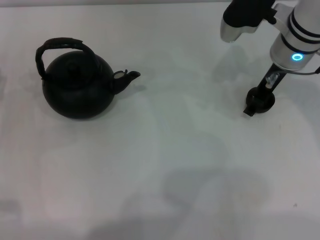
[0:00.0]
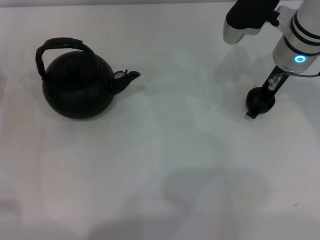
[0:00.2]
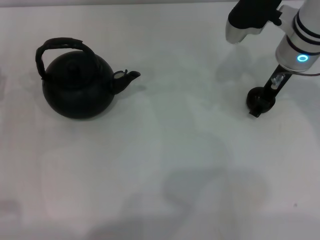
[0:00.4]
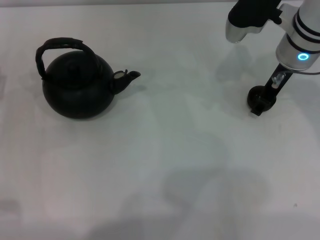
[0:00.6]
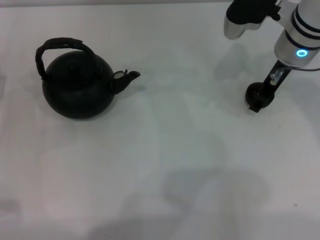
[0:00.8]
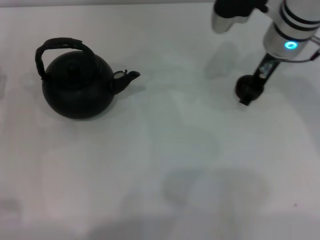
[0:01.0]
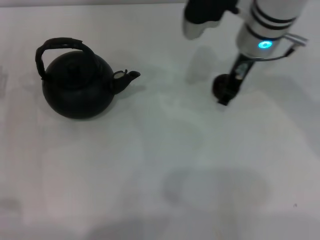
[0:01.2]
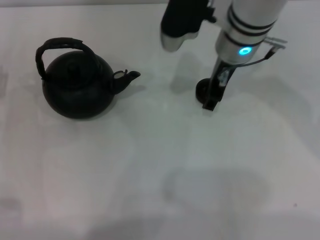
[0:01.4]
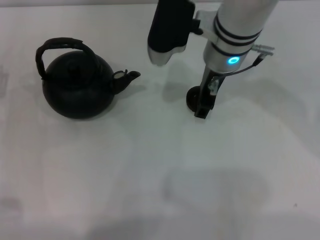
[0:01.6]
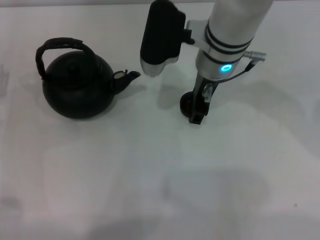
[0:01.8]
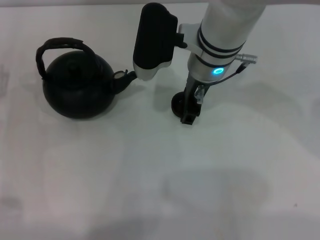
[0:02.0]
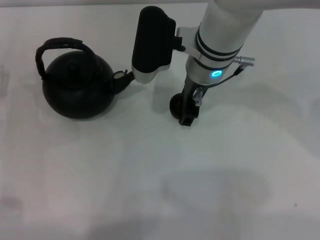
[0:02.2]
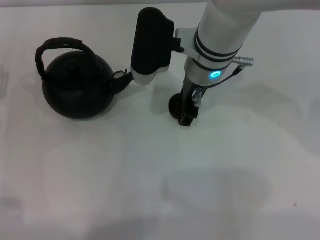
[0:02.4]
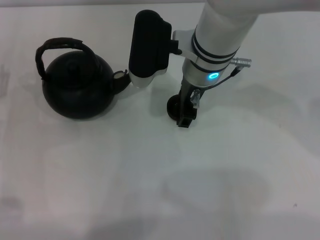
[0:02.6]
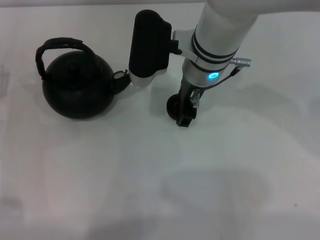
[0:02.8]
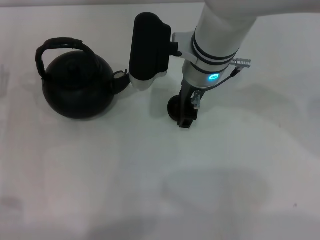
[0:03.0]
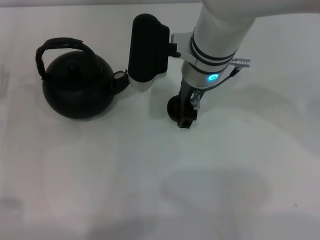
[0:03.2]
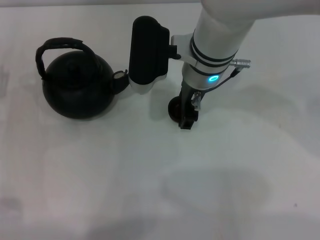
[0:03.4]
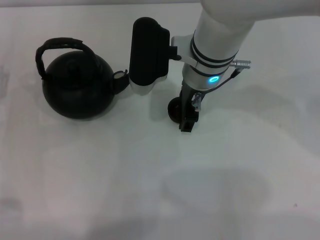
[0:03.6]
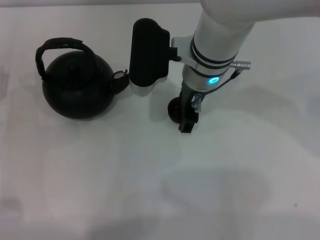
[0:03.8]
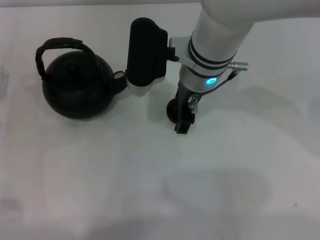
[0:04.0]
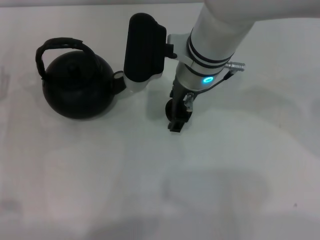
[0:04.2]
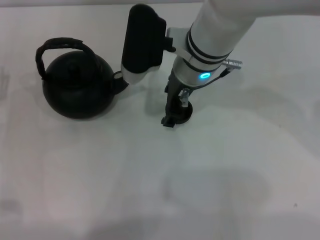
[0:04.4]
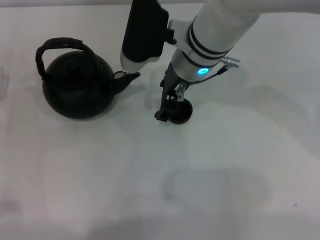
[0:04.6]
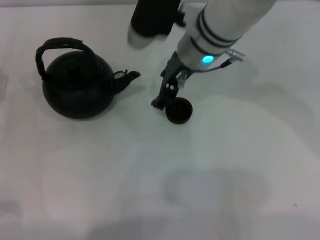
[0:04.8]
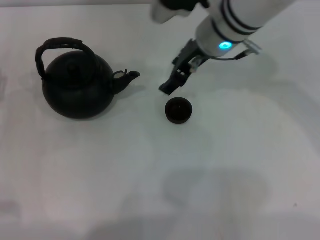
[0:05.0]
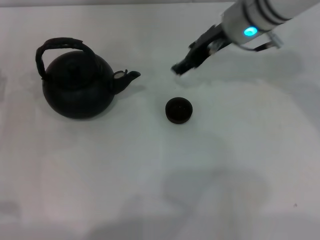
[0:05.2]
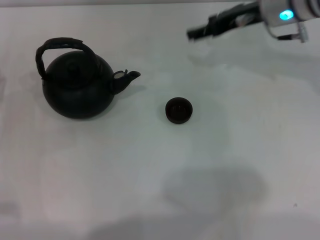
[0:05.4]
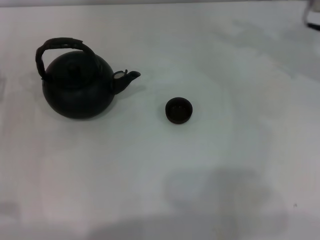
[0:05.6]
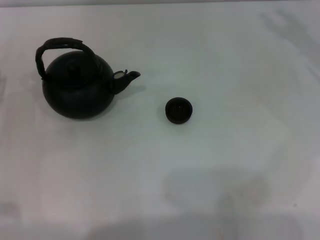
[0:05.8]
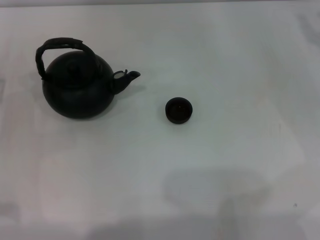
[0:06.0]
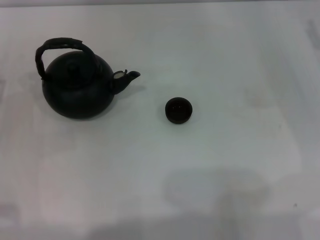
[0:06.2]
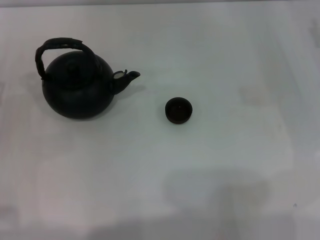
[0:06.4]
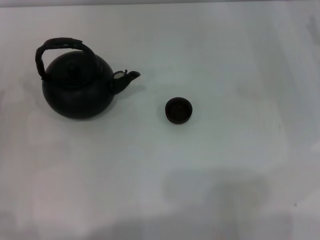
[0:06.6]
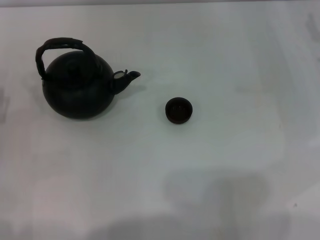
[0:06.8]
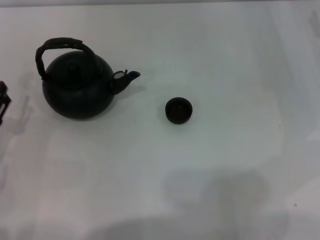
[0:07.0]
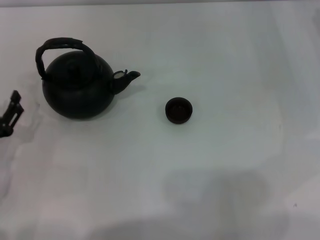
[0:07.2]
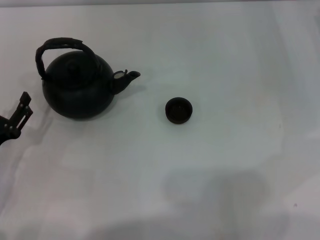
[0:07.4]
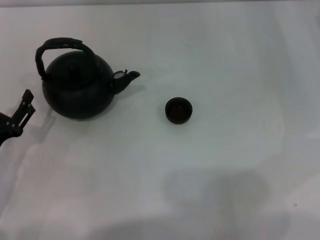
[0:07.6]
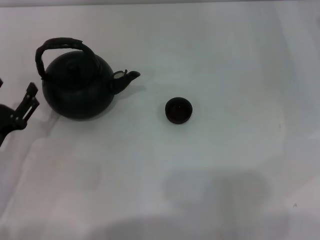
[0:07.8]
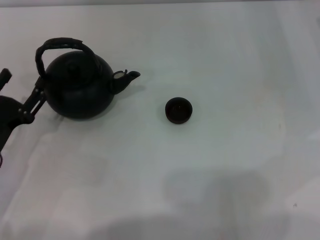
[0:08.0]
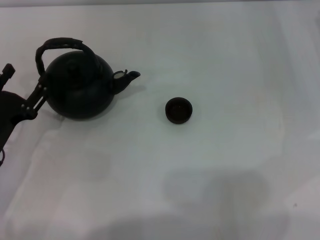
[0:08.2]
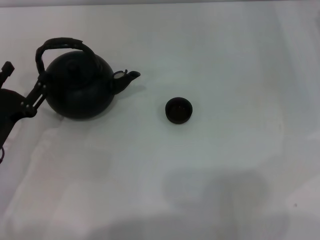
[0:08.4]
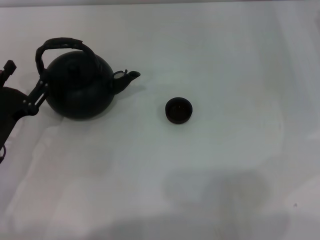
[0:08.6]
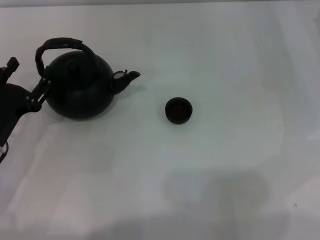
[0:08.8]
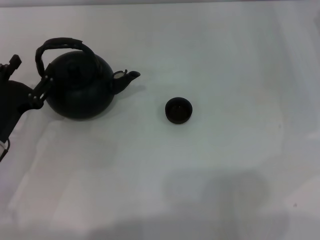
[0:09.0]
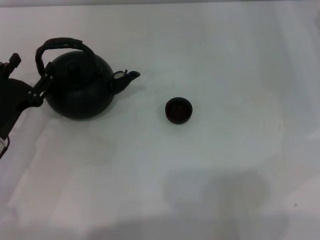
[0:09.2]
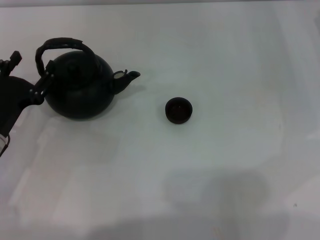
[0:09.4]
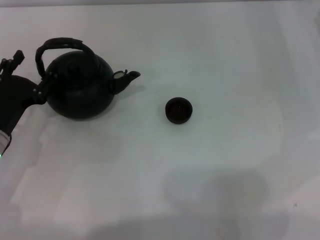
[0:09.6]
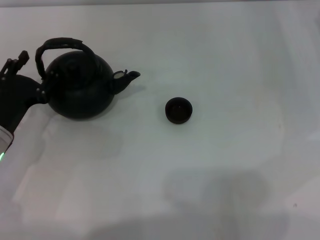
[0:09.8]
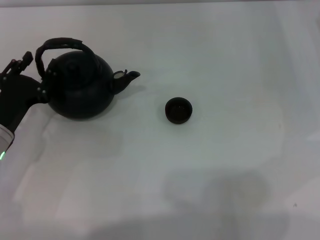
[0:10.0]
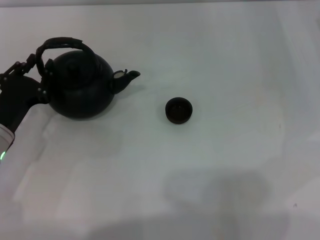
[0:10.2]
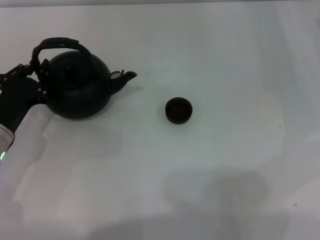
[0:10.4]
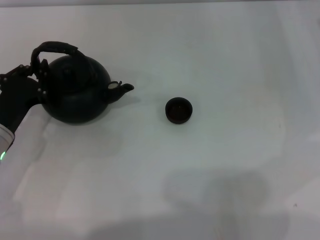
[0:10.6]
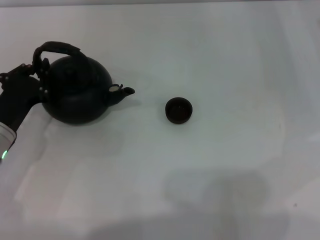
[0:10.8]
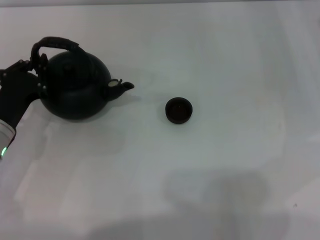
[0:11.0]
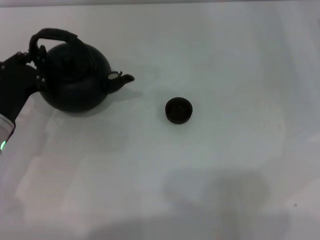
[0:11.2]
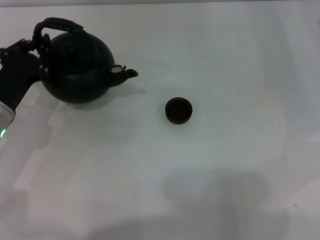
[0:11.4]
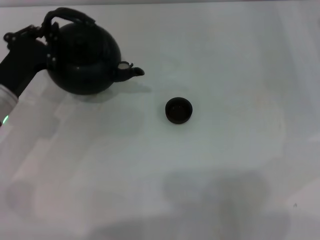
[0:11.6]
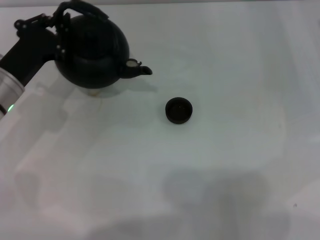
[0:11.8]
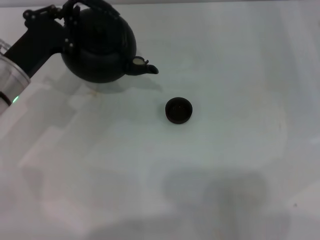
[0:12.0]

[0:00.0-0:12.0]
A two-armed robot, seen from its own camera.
Task of the whole recording: Grasp the handle of the teapot with one hand and pour tea into the teacup.
Step, 0:01.0 to 0:05.0: Place the teacup in the center of view with the right gripper.
Step, 0:05.4 to 0:11.4: Pick up the teapot with the left gripper.
0:00.0 to 0:01.6: The right gripper goes approximately 10 cm to the left.
0:01.6 to 0:04.4: The grippers stay close to where they were, moving slightly.
0:04.4 to 0:06.0: The right gripper shifts approximately 30 cm to the right.
0:06.0 to 0:07.6: The left gripper moves backward, approximately 5 cm.
0:07.6 to 0:09.0: The left gripper moves roughly 5 cm.
0:09.0 to 0:10.4: The left gripper closes up.
0:10.4 to 0:12.0: The left gripper goes approximately 10 cm forward and upward, and closes up.

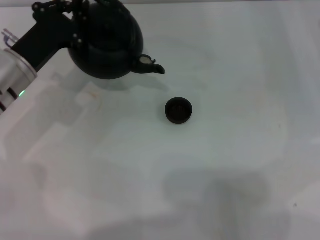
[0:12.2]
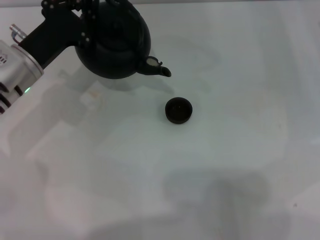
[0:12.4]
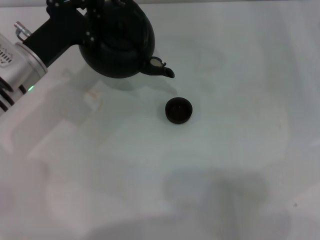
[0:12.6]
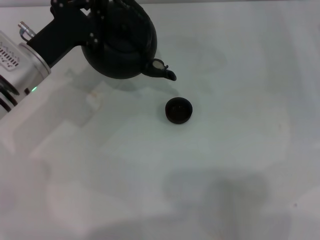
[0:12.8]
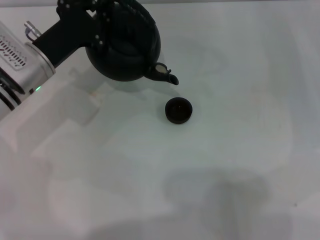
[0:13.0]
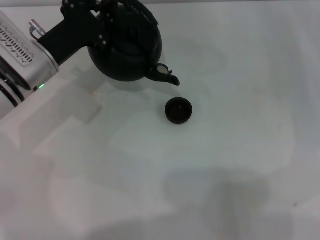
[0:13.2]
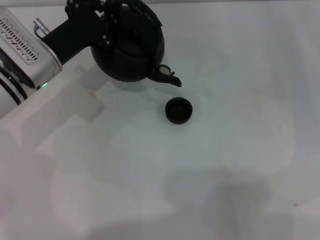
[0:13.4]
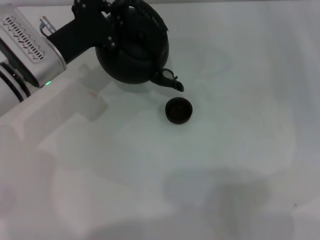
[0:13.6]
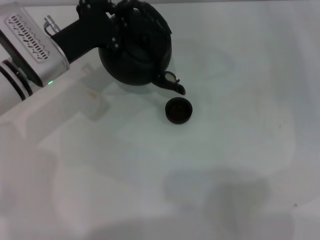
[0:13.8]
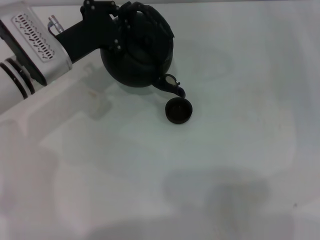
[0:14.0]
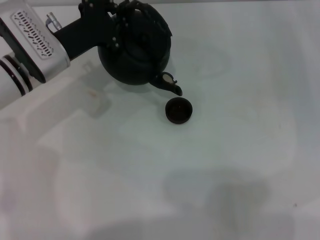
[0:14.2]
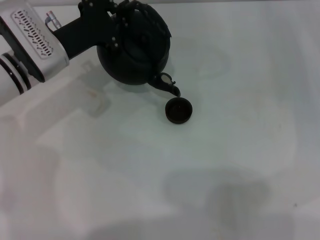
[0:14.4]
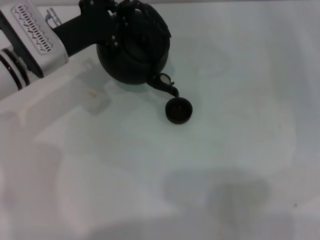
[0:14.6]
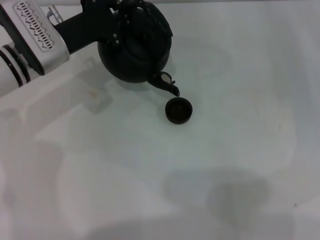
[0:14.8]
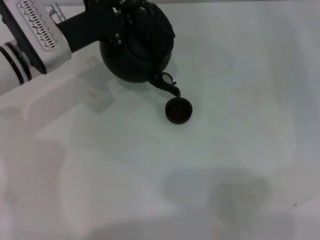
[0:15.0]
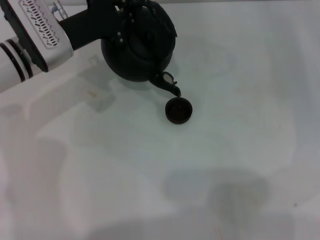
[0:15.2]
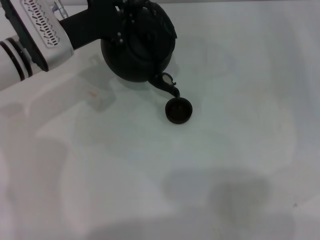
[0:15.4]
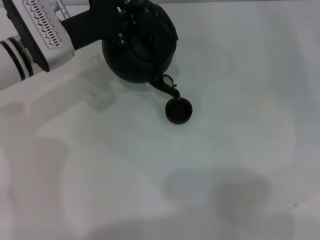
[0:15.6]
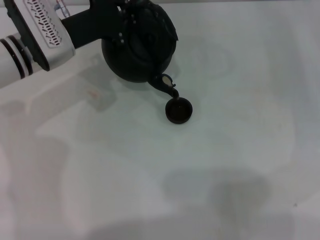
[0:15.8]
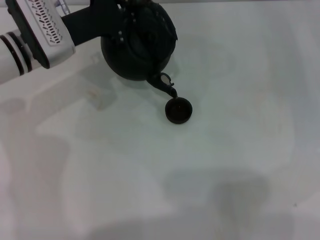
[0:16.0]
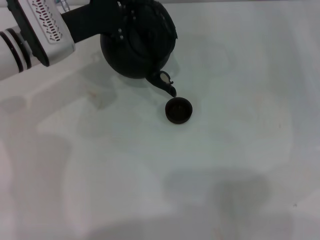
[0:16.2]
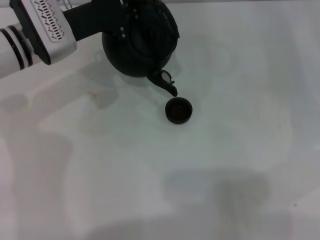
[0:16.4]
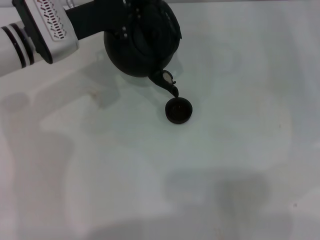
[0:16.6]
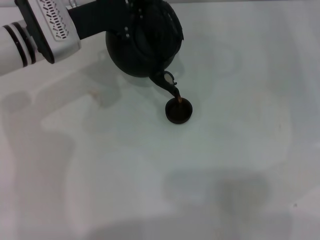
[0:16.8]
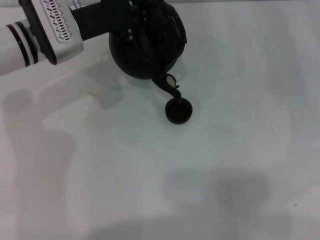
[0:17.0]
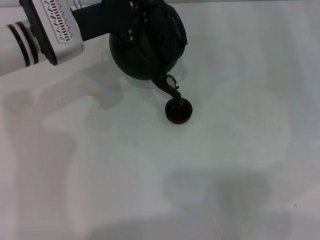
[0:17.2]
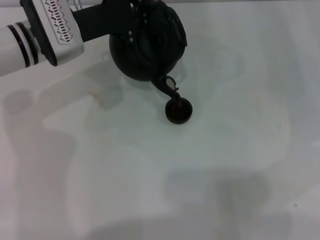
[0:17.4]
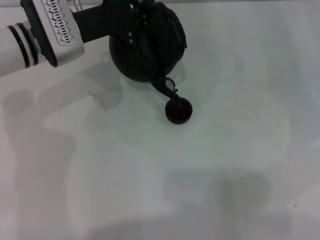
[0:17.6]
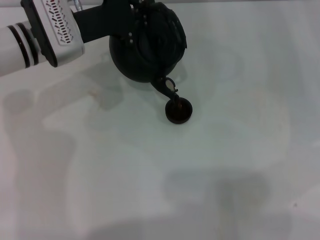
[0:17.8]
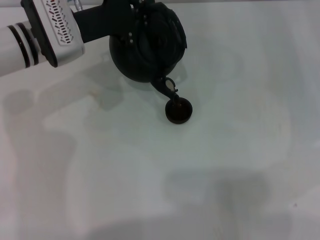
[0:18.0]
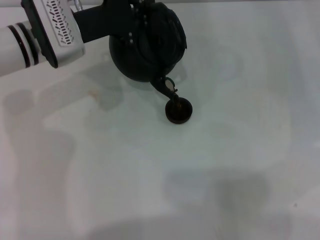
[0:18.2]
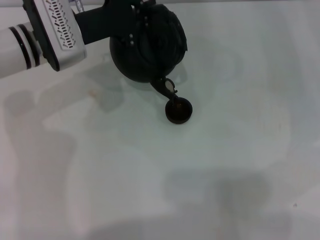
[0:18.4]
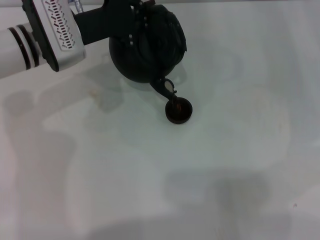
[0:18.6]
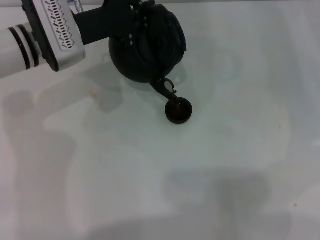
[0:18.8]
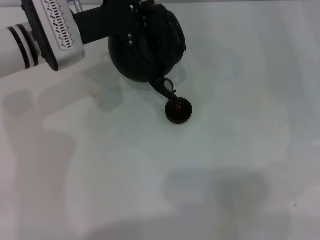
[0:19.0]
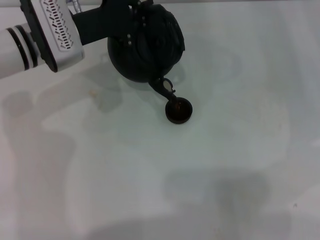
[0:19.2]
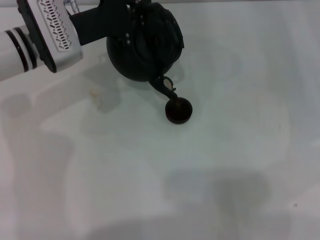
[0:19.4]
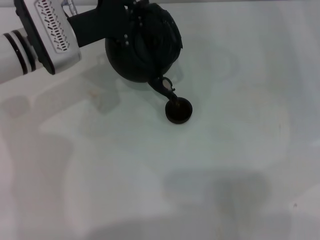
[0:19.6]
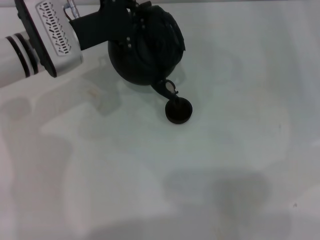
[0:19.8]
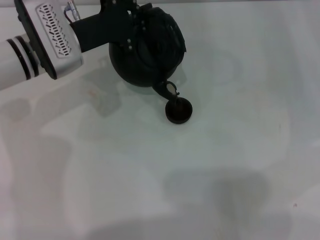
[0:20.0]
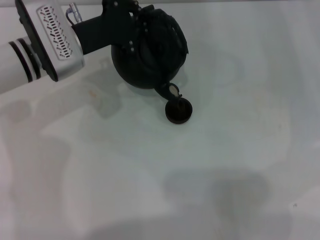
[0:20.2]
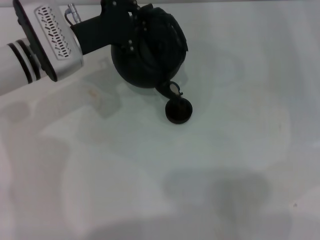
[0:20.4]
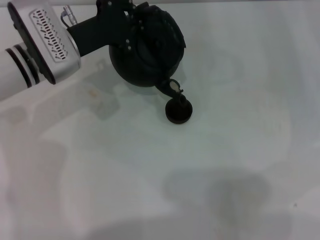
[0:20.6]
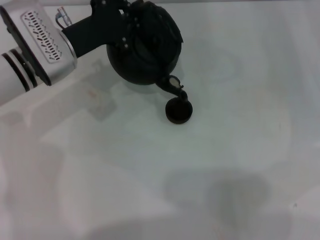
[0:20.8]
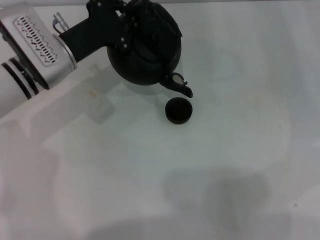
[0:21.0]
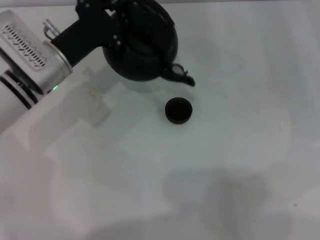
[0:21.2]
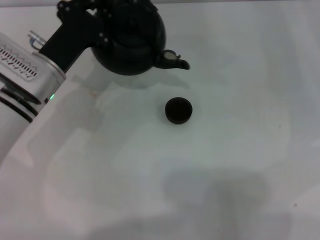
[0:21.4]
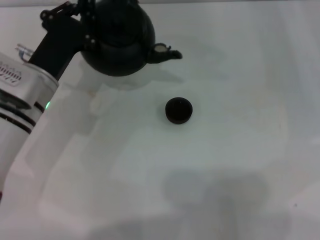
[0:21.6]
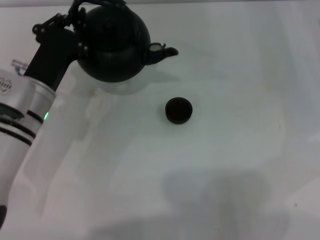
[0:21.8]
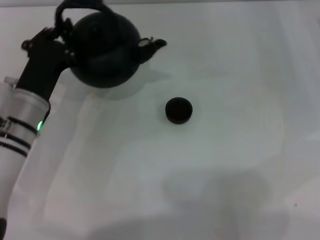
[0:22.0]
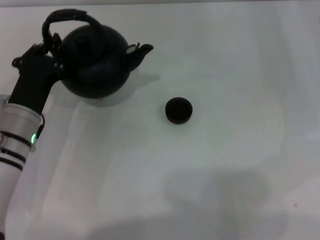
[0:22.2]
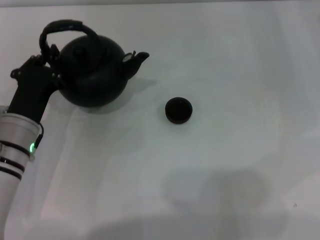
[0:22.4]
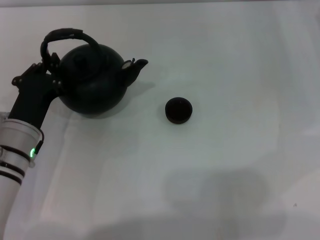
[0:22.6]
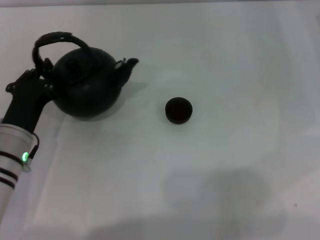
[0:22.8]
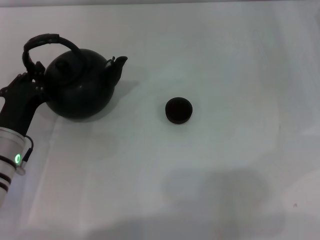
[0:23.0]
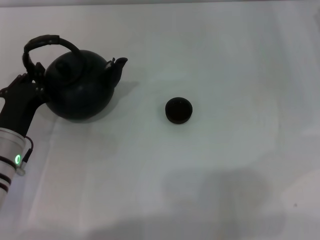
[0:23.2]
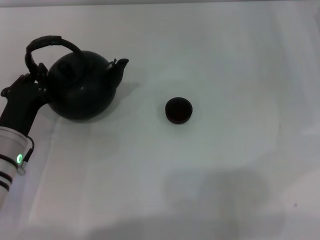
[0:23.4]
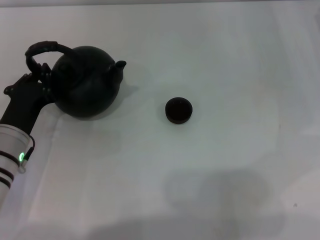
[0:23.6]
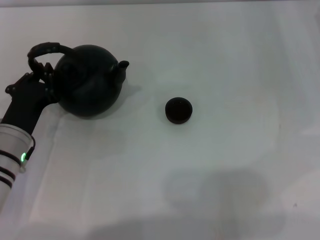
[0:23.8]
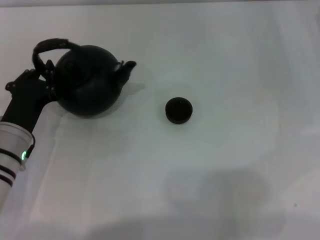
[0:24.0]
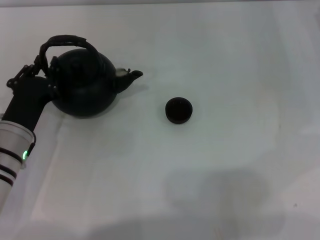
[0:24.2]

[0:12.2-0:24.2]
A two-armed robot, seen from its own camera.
Task of the whole recording: Grasp the handle of the teapot with one hand and pour tea into the teacup.
Step, 0:12.2 to 0:21.0: Pour tea into the teacup with the left gripper.
0:12.2 to 0:13.8: The grippers move only a little.
0:13.8 to 0:16.6: The grippers make only small movements.
0:16.6 to 0:18.2: Both grippers stay about where they are.
0:18.2 to 0:19.8: Both grippers stay put.
0:21.2 to 0:22.6: The left gripper moves backward and downward, about 10 cm.
0:22.6 to 0:24.2: There are only small adjustments of the grippers.
